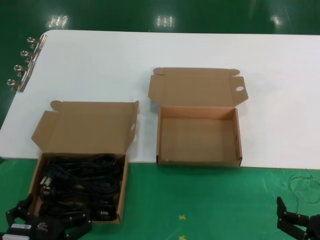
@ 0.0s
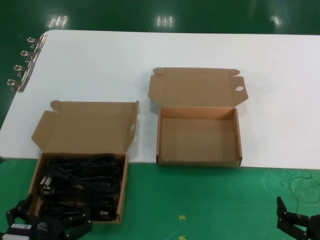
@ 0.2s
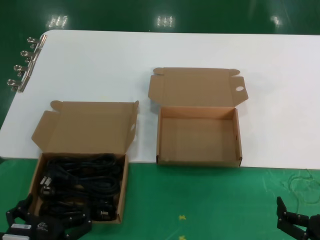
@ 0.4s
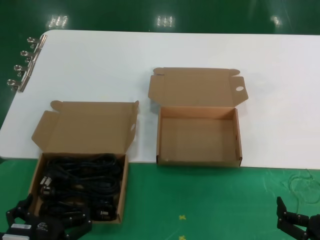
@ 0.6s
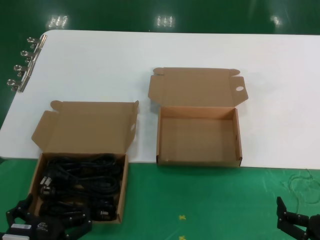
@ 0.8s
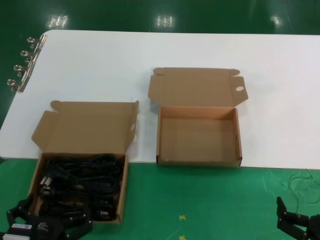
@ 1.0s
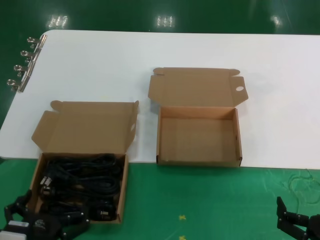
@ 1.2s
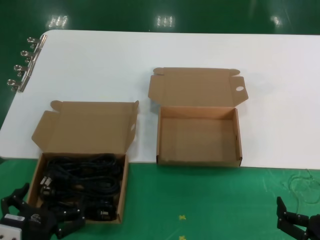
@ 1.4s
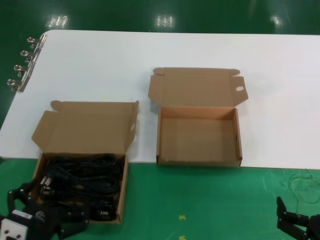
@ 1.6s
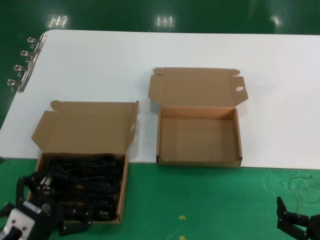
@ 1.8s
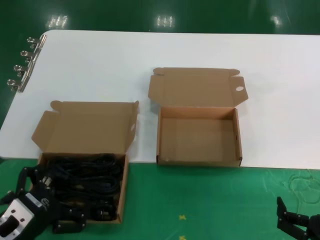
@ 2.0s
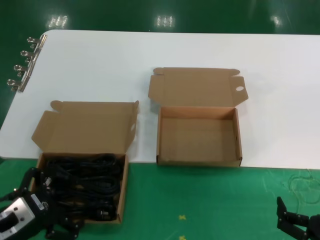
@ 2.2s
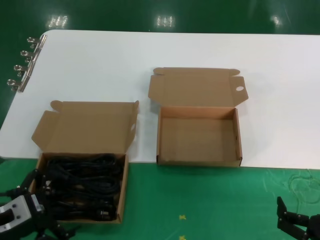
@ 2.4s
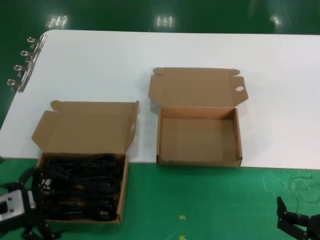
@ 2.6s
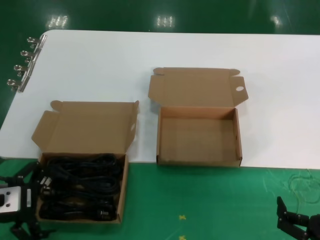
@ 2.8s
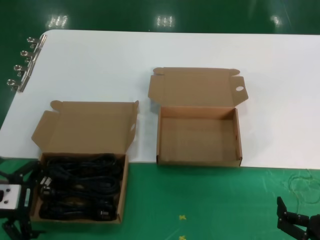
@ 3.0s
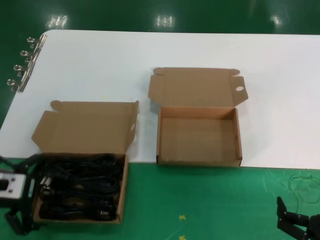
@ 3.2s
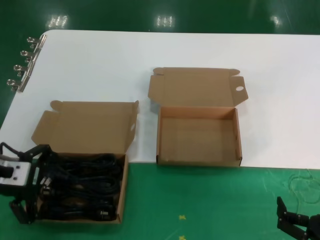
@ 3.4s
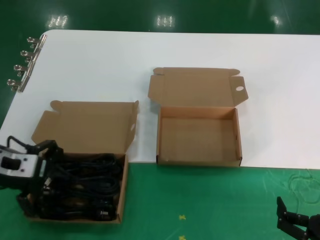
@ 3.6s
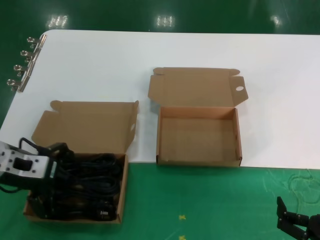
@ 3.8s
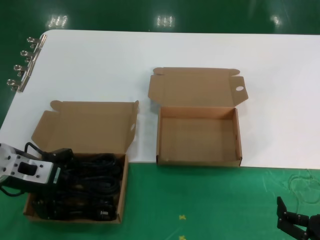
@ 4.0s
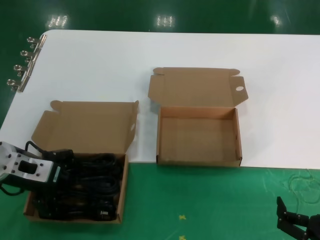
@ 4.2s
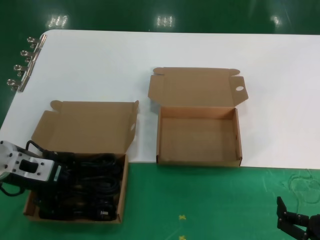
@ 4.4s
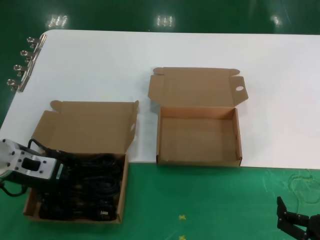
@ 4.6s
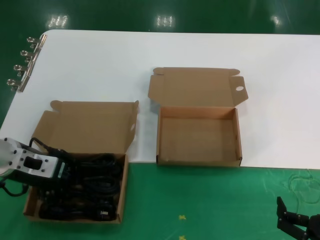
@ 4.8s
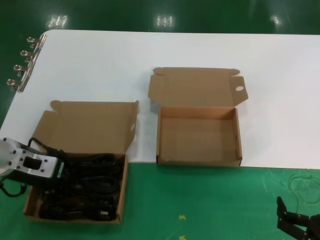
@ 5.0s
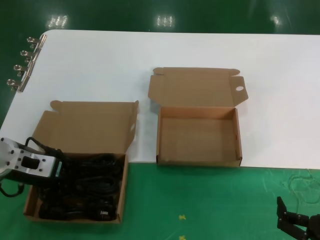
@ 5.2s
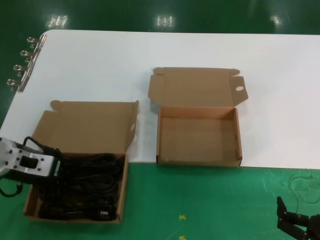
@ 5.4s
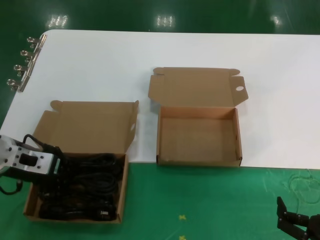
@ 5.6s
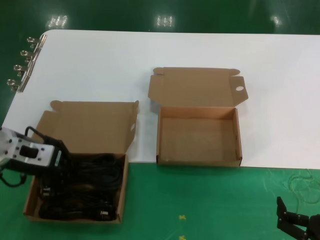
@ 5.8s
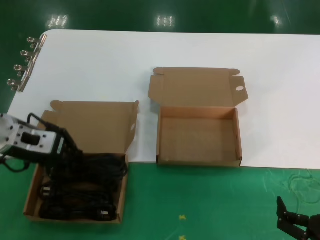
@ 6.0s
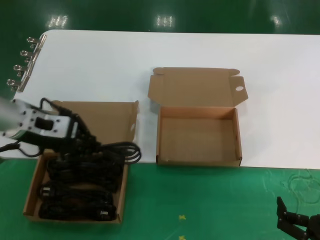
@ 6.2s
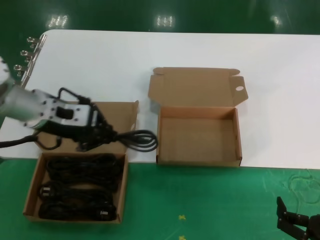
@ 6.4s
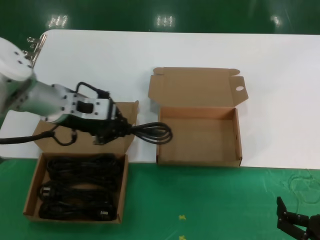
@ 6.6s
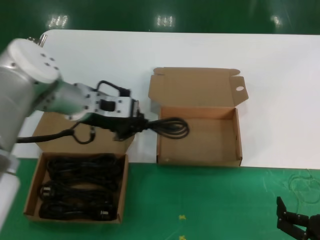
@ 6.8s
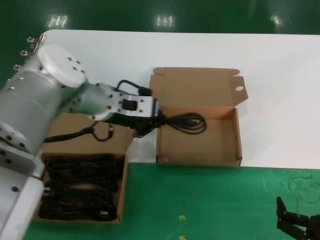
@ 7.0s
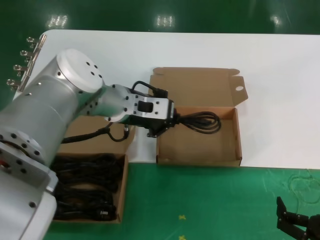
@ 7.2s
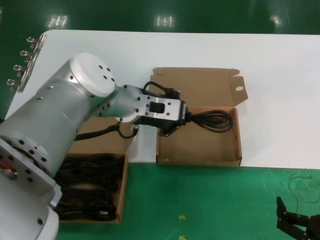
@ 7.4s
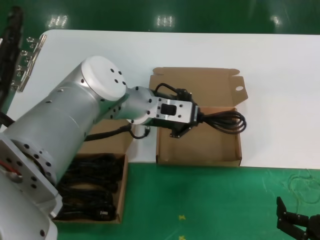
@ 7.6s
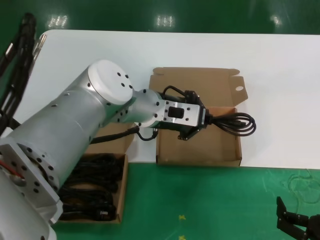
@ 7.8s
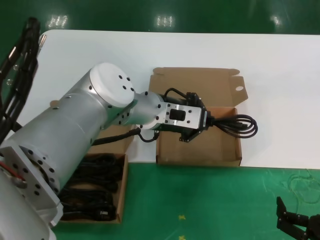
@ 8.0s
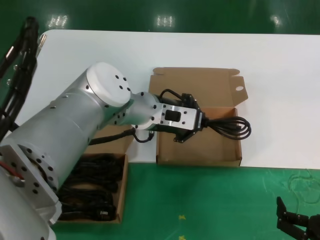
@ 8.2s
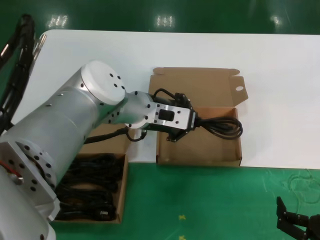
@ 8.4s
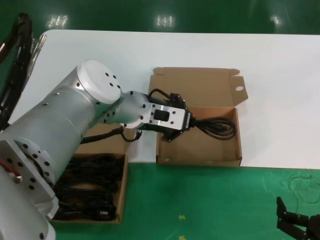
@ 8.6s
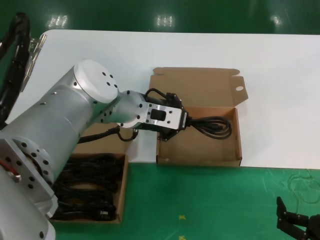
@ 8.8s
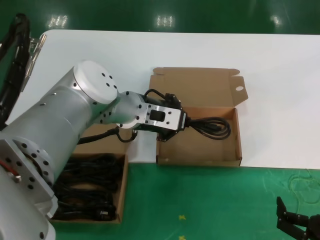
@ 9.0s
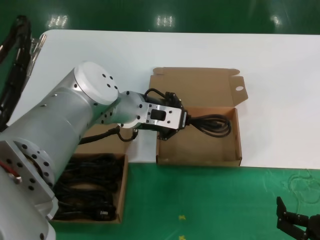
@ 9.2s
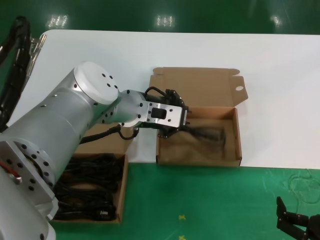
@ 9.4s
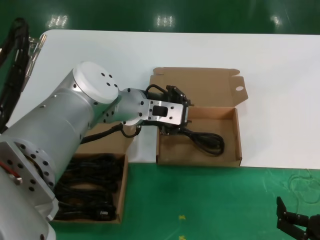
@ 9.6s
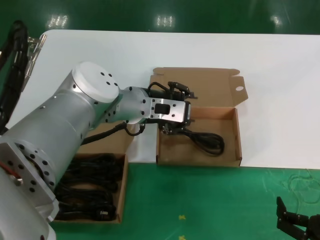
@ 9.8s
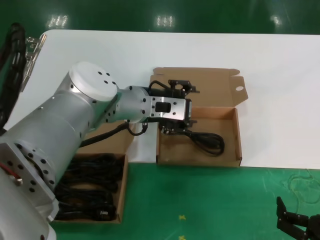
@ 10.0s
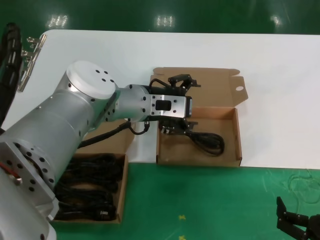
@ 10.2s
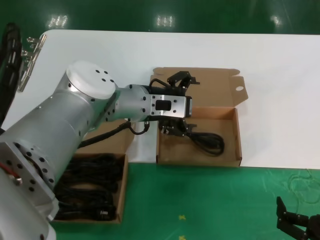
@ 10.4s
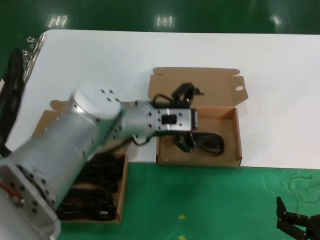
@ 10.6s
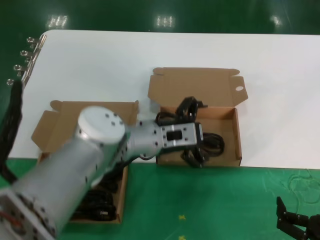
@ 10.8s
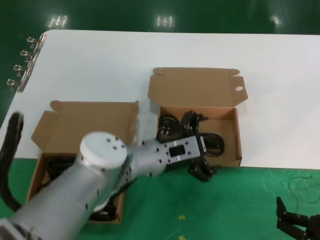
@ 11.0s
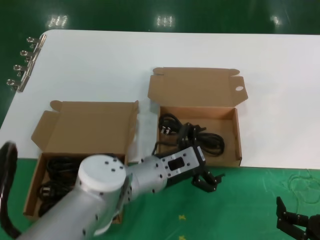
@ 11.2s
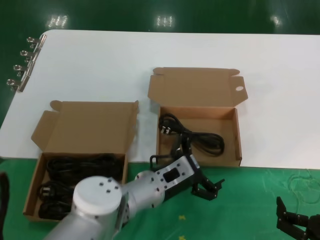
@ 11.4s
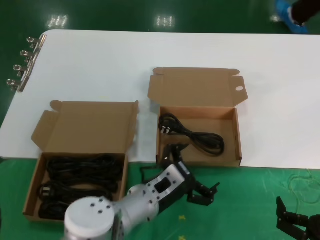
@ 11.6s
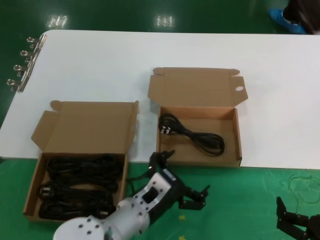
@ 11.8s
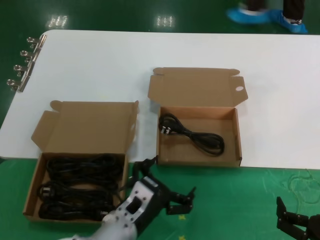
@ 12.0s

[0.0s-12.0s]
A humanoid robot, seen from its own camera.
Task of the whole recording: take the parts from the box containing them and put them into an empty box.
Step, 0.0s to 5.6s: Grasp the data cable.
Step, 5.8s to 10.0s: Place the data cable in the another box.
0.0s to 1.6s: The hands make only small movements.
1.6s to 3.0s: The left hand goes approximately 20 cm upward, forward and to the left.
3.0s to 4.4s: The left hand heads forward, covering some 10 cm.
4.4s to 6.0s: The hands make only small movements.
6.0s to 7.6s: The left hand goes approximately 25 cm to the right.
7.6s to 10.4s: The hands move only a little.
10.4s to 12.0s: The left hand is displaced downward and backward by approximately 25 cm.

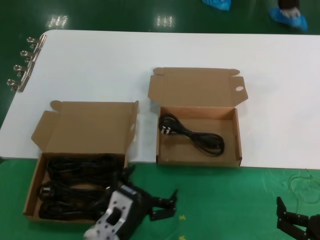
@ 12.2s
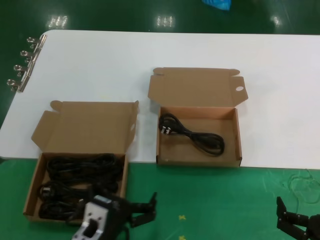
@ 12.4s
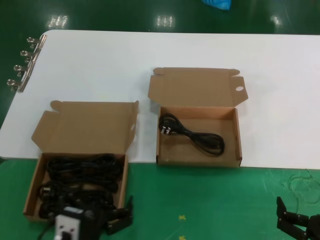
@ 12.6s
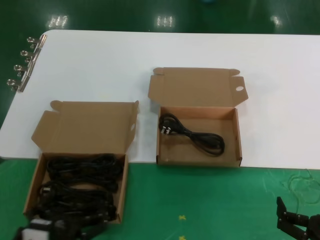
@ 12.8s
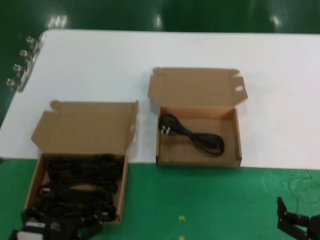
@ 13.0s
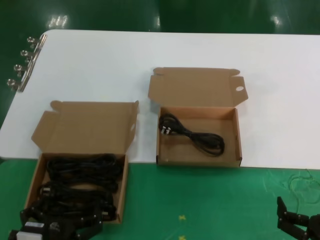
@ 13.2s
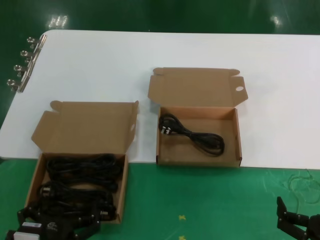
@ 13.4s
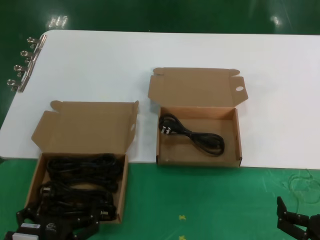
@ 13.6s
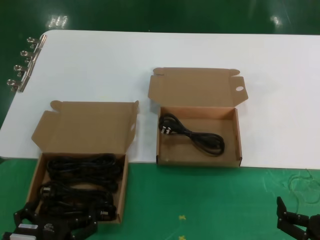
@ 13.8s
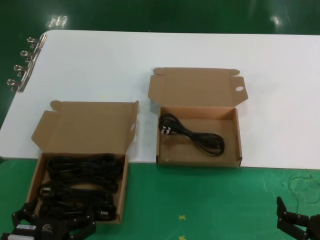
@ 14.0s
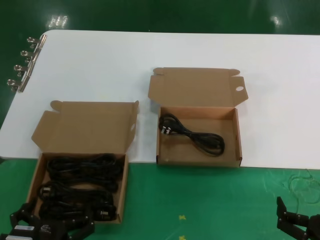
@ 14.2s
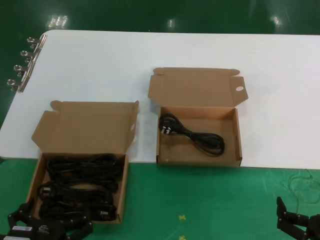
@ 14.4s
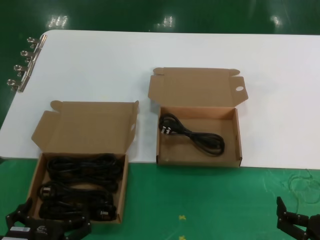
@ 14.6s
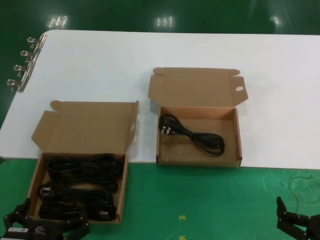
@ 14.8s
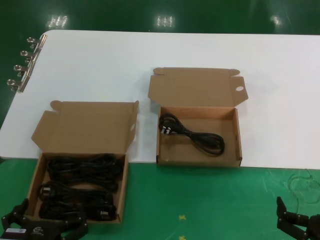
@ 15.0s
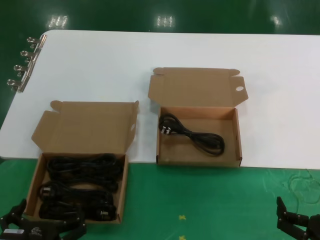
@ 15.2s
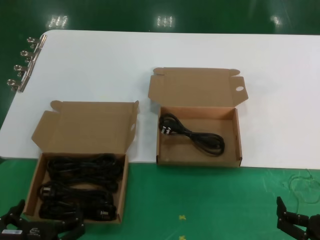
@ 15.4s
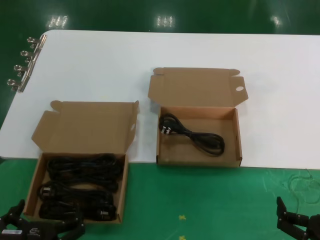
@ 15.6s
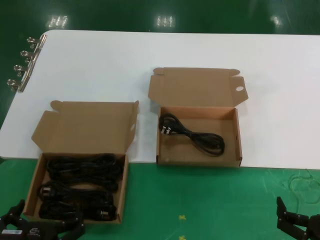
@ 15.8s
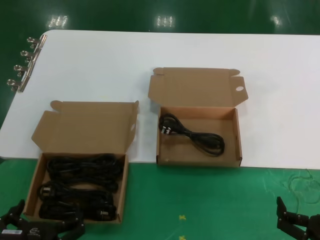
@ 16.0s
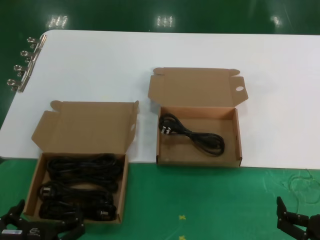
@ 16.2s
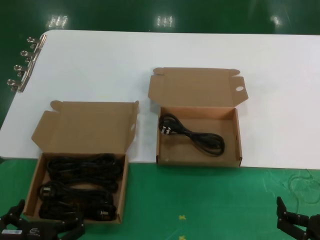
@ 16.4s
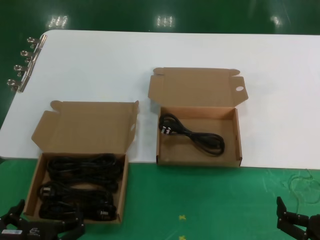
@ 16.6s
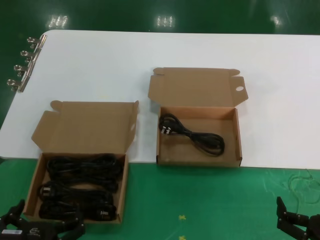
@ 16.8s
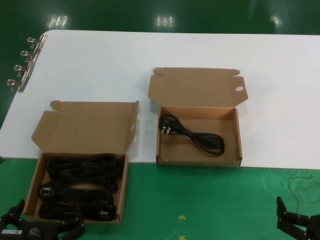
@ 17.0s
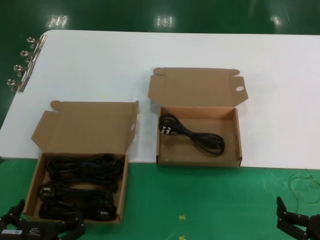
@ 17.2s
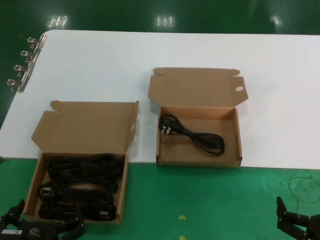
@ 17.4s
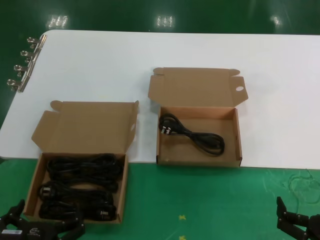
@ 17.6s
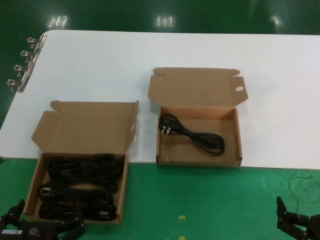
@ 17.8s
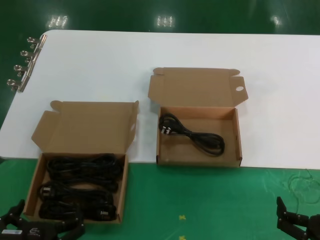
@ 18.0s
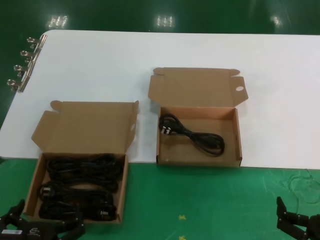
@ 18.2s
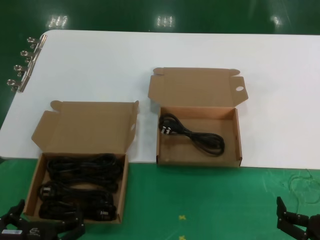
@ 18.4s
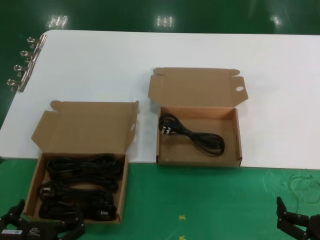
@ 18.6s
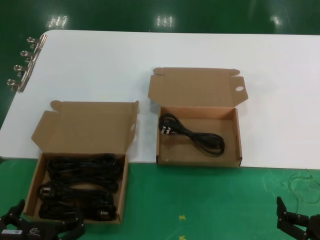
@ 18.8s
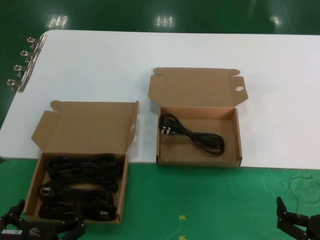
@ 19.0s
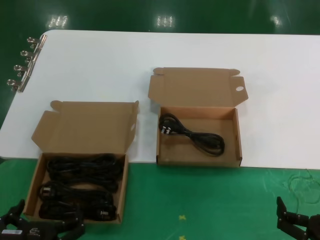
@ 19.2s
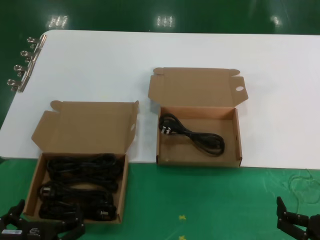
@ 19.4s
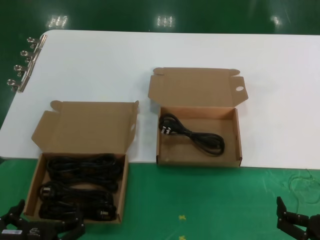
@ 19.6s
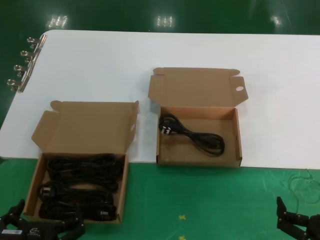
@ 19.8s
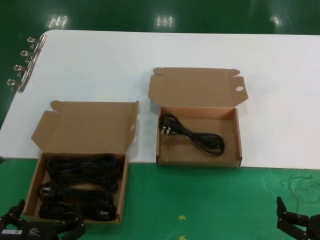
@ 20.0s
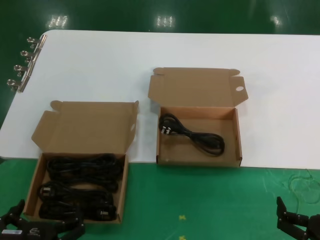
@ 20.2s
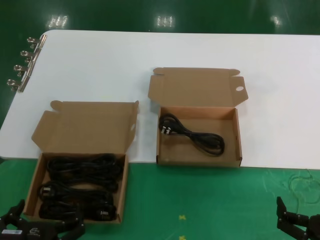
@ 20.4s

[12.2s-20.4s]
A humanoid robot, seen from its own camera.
Task of the whole recording: take the parts from the box containing them and put them into an empty box.
12.2s to 13.8s: The left hand is displaced backward and to the left by approximately 15 cm.
13.8s to 15.4s: The hands stay close to where they were, moving slightly.
15.4s to 20.4s: Neither hand changes place.

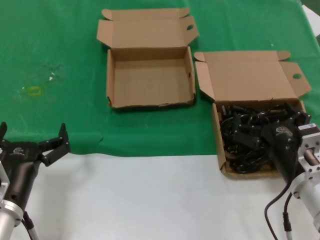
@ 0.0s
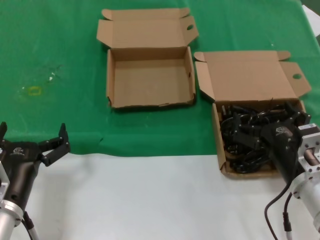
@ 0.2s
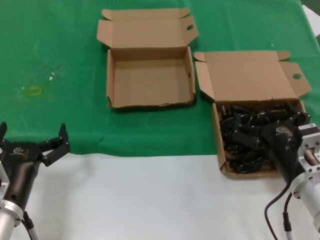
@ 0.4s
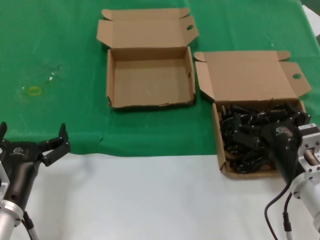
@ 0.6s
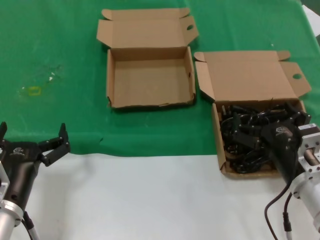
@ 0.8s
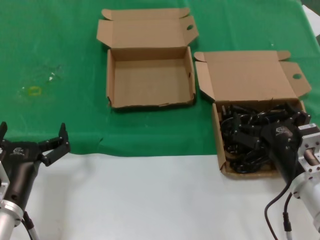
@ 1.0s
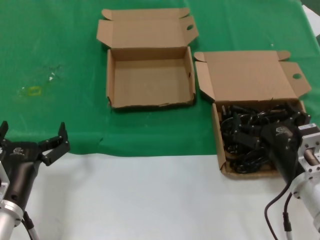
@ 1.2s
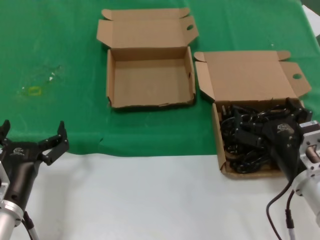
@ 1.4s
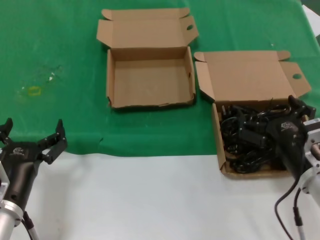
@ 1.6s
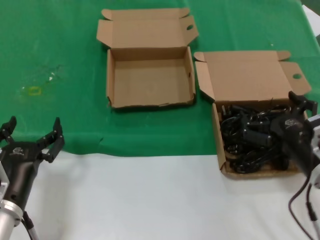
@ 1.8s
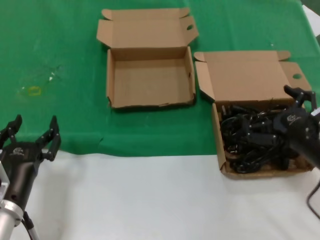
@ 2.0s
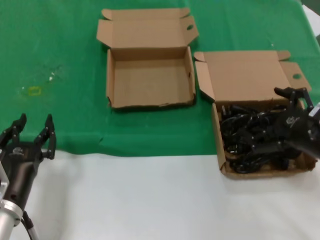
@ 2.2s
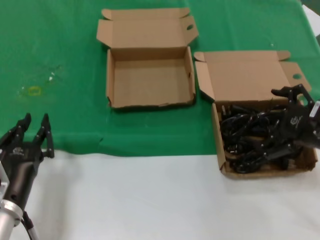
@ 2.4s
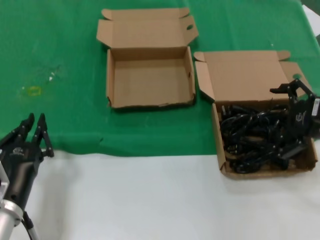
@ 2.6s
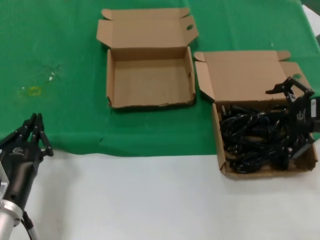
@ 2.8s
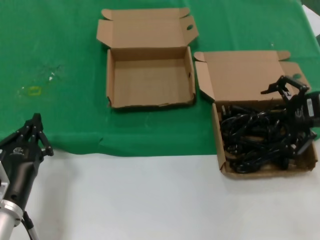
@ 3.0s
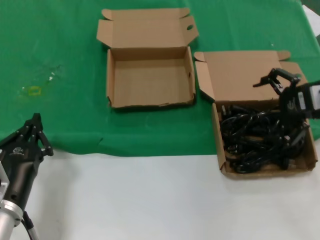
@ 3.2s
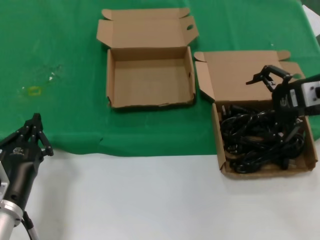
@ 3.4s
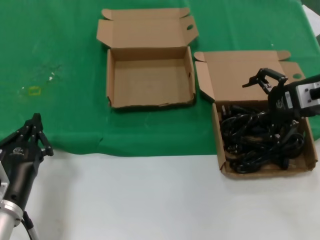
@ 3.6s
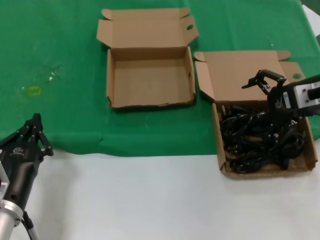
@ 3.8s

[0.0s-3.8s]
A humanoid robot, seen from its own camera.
Task of the whole recording: take the parts from the box containing them and put them into an empty box.
0.0s to 1.2s: Both hands stay about where they are.
1.2s to 2.6s: The right hand travels upward, to the right and forward by some 20 cm.
2.6s to 3.8s: The right hand heads forward, covering approximately 10 cm.
